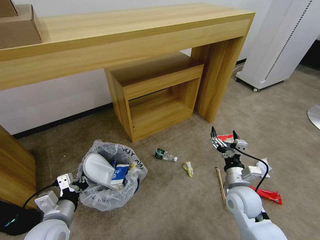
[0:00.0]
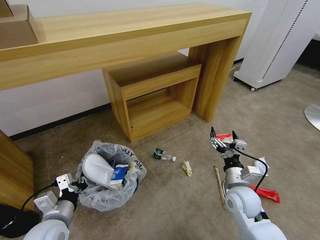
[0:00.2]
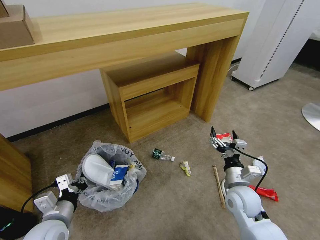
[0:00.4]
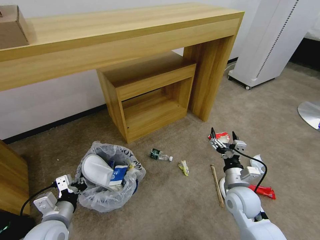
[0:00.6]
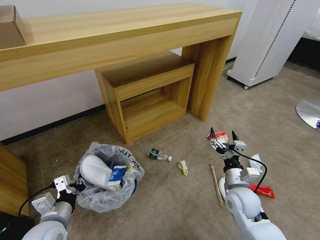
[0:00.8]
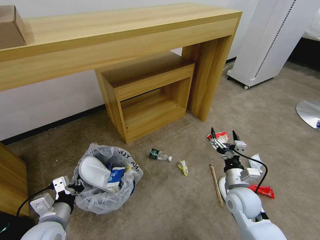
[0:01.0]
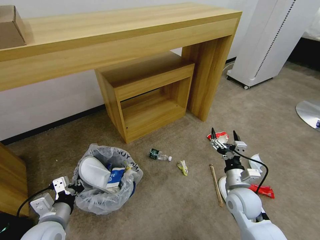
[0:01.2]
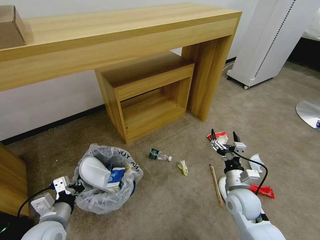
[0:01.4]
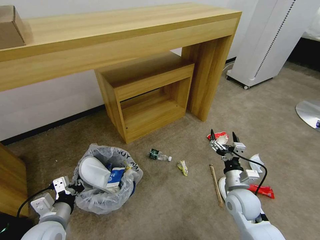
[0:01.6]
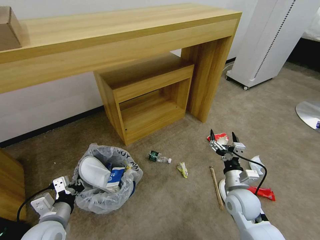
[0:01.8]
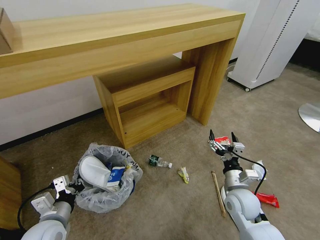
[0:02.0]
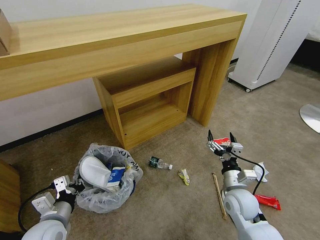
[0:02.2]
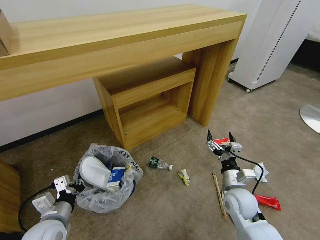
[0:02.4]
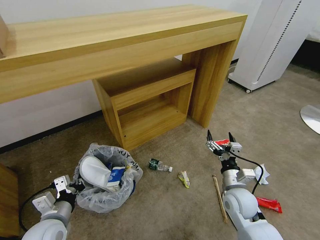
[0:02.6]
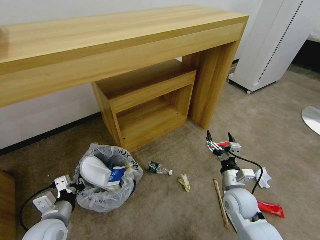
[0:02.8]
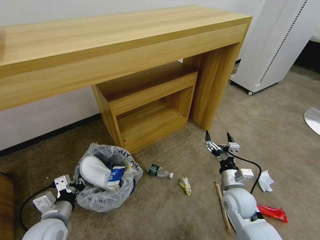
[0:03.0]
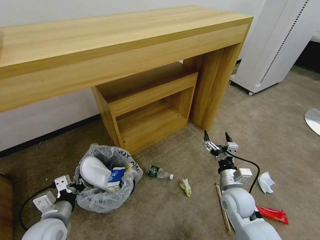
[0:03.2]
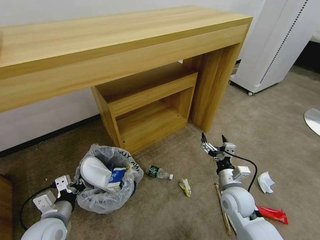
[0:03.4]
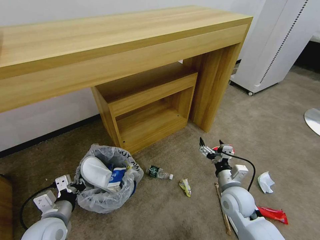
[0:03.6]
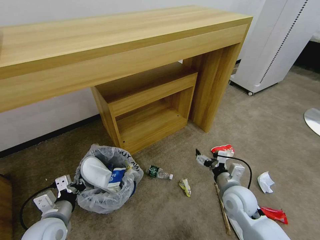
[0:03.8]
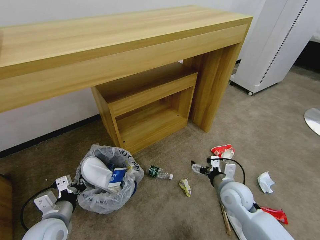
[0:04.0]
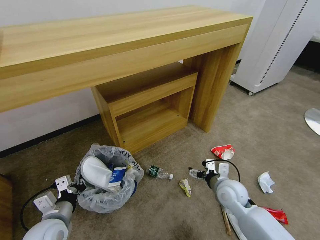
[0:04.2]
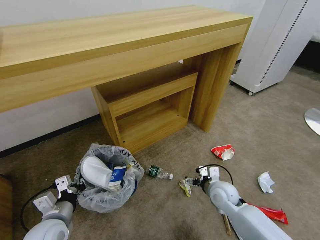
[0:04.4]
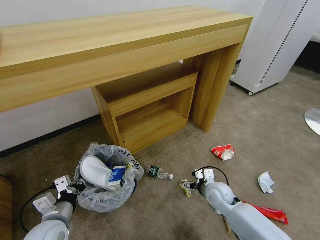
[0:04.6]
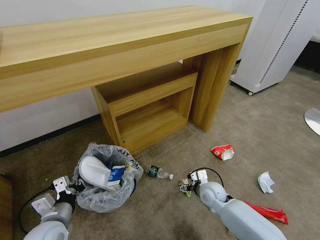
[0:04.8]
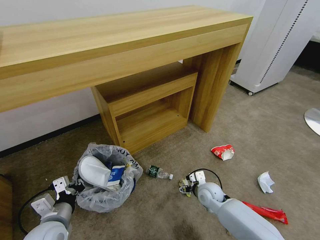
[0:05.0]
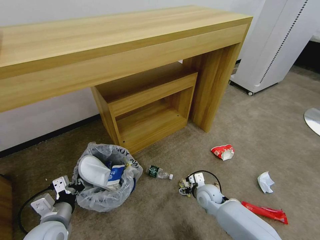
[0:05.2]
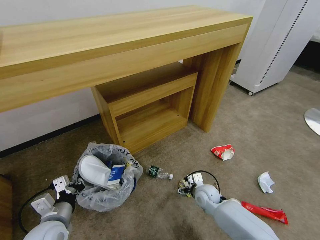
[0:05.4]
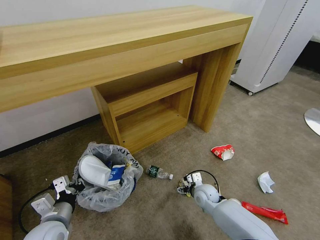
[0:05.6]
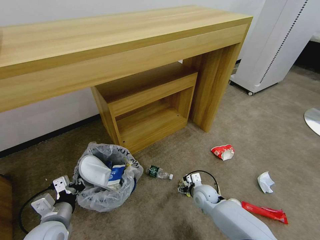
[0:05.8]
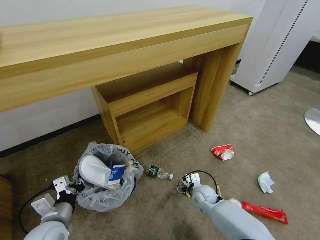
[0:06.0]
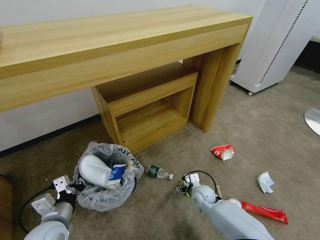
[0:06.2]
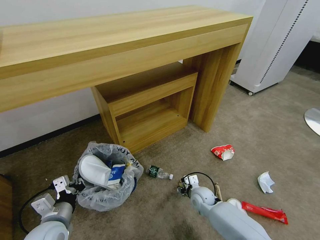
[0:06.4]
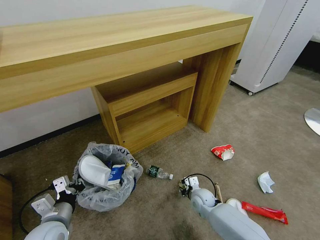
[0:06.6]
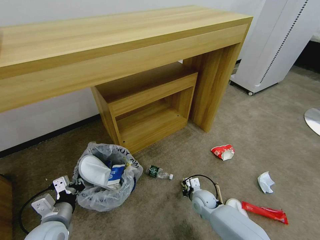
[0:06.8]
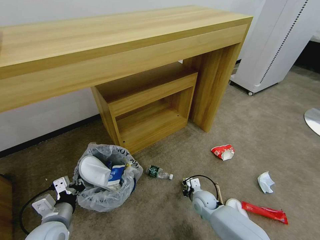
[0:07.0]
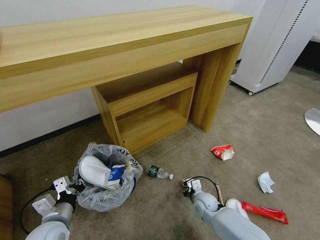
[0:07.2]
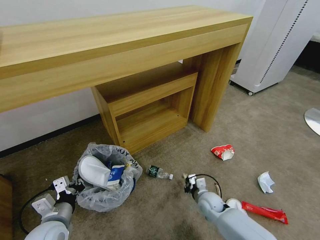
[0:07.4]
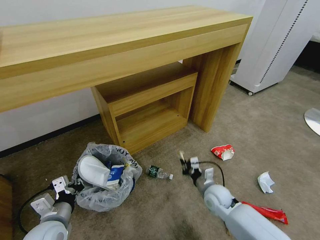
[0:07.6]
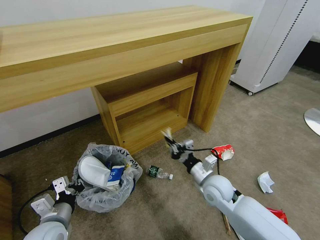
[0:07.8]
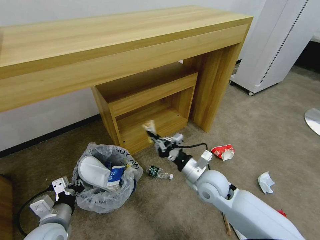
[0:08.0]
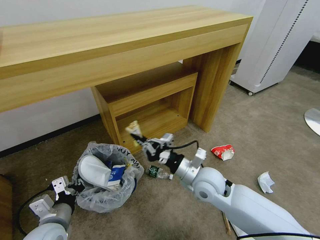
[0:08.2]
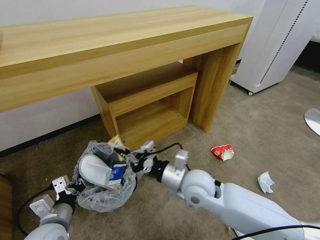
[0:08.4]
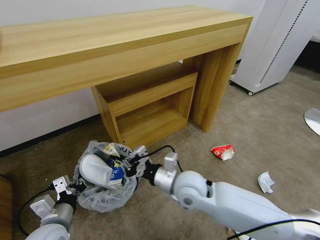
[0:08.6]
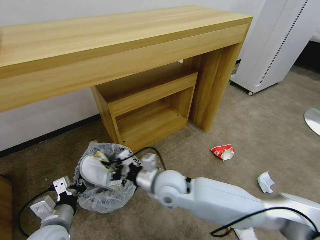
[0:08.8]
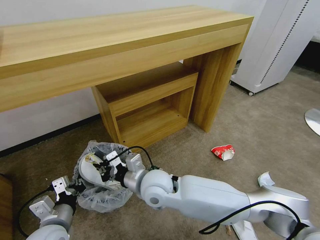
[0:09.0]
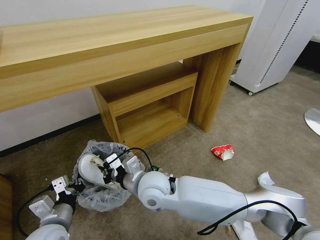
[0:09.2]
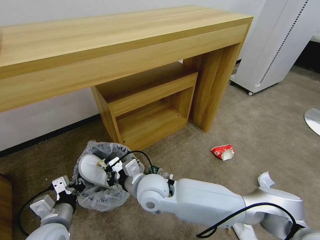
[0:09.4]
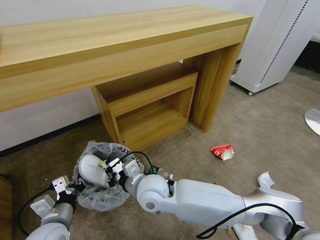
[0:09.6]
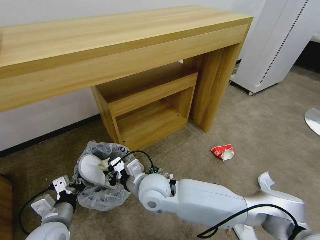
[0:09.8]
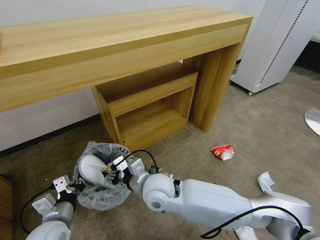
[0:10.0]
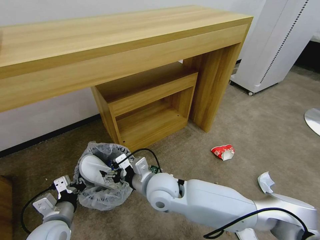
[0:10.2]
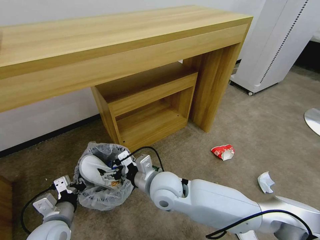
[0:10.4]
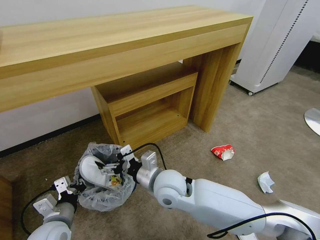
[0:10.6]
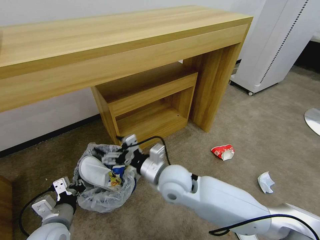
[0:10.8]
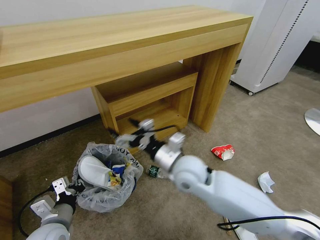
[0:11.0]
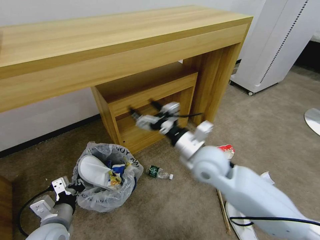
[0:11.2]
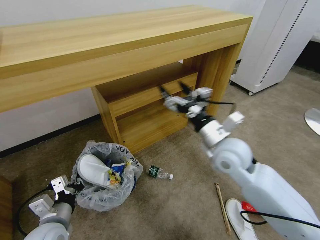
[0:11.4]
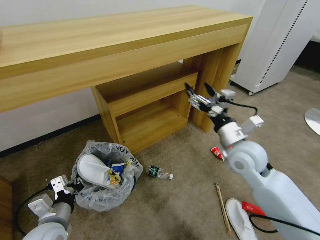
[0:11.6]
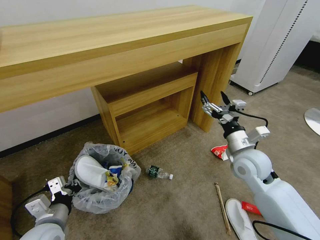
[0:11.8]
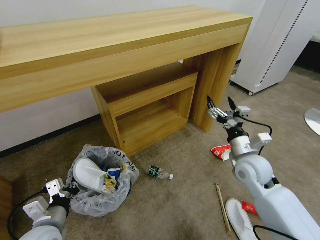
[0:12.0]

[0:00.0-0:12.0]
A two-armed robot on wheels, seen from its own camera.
Task of the whole recording: Pick up the trash bin and place the garbage on the floor into it.
0:03.0 to 0:04.4: The right gripper moves about 5 cm.
0:04.4 to 0:06.0: The right gripper goes approximately 10 cm downward.
0:06.0 to 0:07.6: The right gripper is displaced upward by about 5 cm, and closes up.
0:07.6 to 0:09.0: The right gripper goes about 30 cm to the left and upward.
0:09.0 to 0:10.4: The right gripper opens.
0:10.4 to 0:12.0: The right gripper goes some 25 cm to the right.

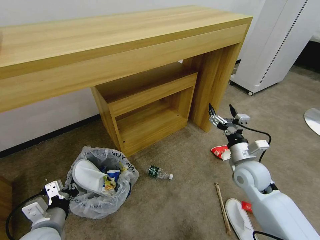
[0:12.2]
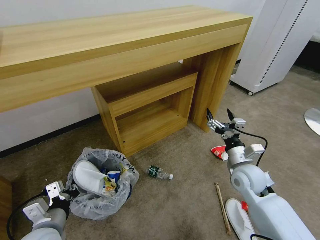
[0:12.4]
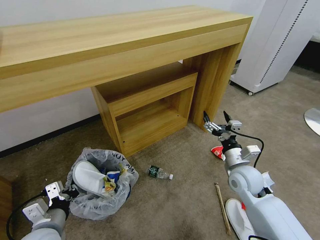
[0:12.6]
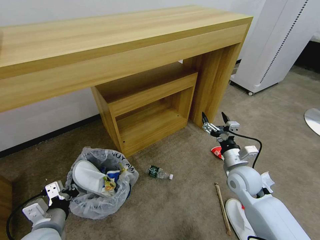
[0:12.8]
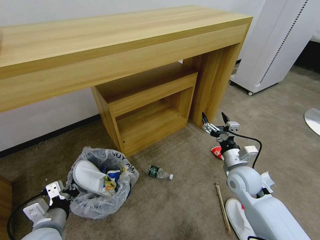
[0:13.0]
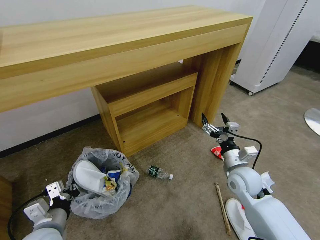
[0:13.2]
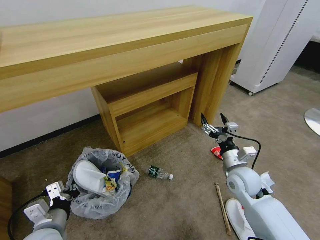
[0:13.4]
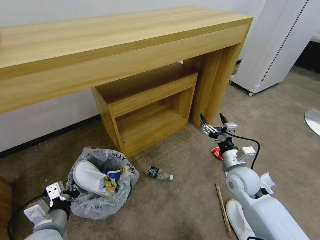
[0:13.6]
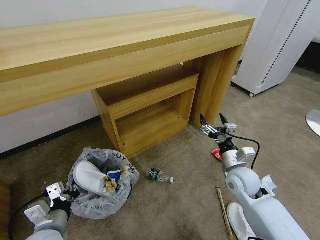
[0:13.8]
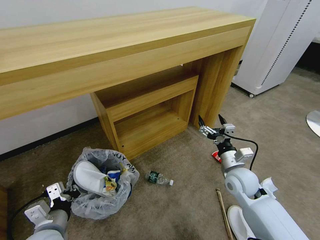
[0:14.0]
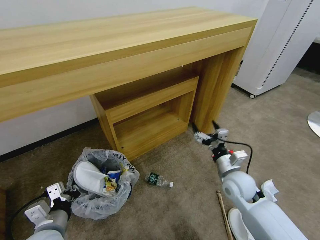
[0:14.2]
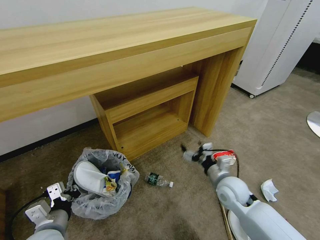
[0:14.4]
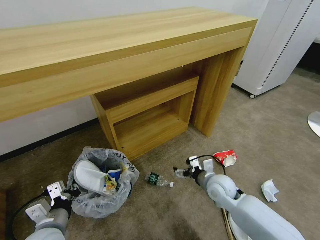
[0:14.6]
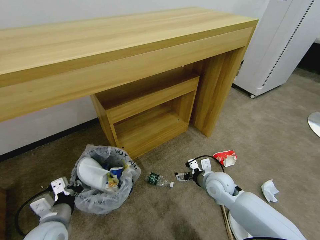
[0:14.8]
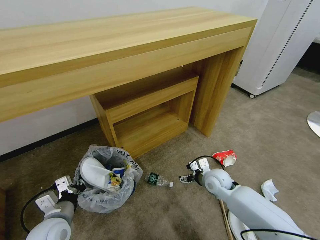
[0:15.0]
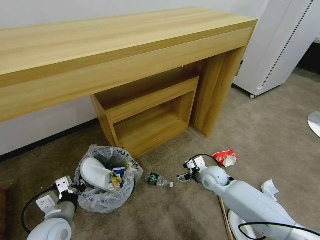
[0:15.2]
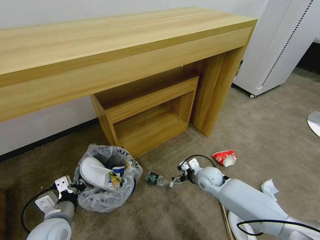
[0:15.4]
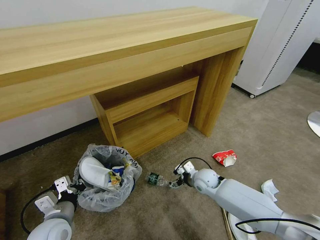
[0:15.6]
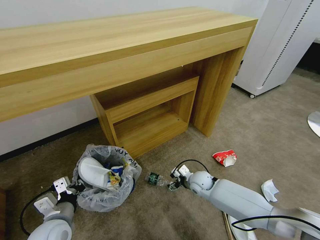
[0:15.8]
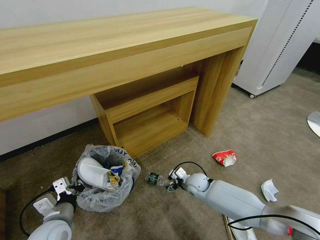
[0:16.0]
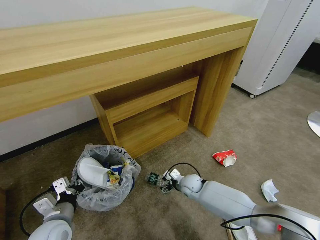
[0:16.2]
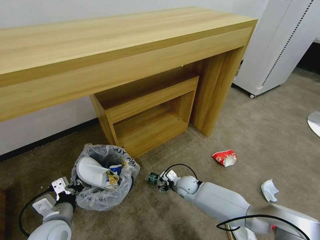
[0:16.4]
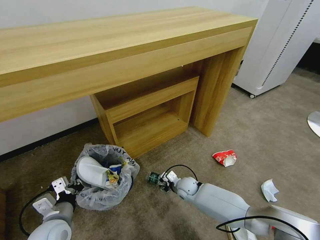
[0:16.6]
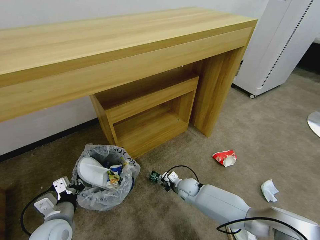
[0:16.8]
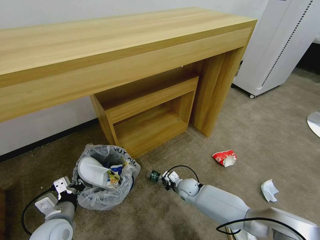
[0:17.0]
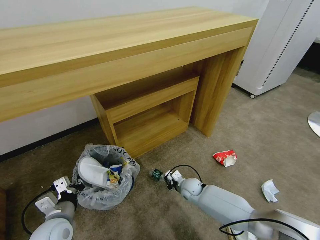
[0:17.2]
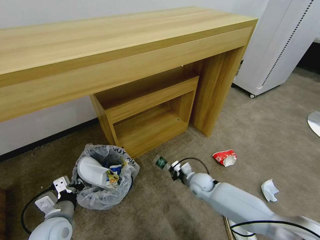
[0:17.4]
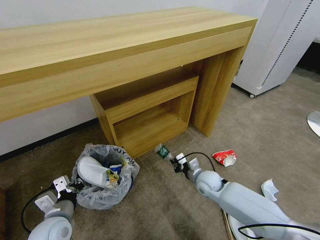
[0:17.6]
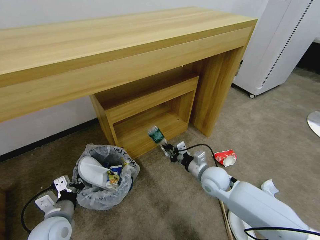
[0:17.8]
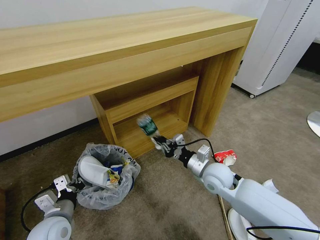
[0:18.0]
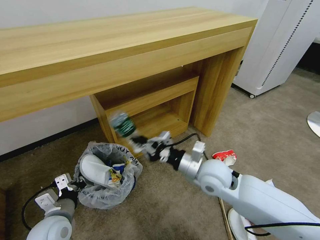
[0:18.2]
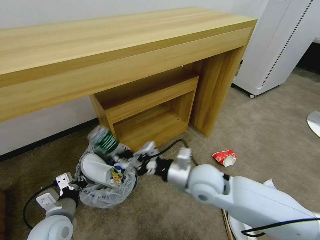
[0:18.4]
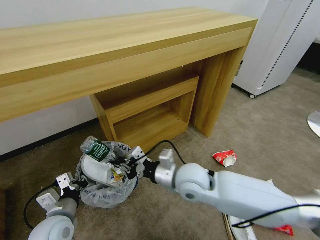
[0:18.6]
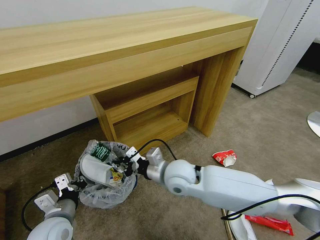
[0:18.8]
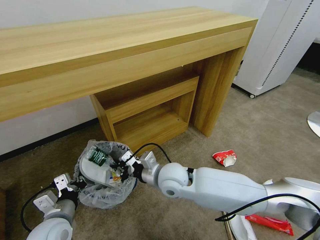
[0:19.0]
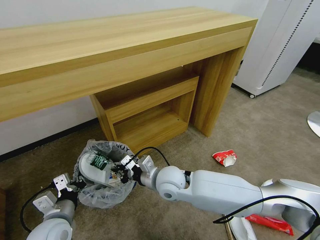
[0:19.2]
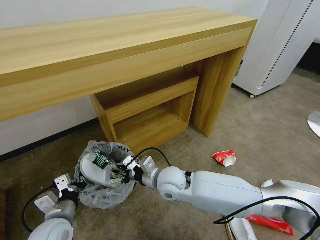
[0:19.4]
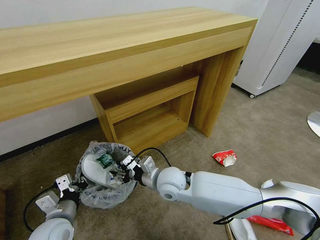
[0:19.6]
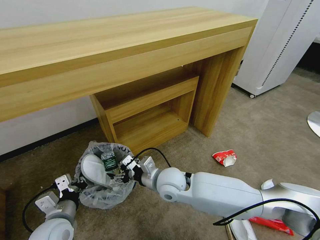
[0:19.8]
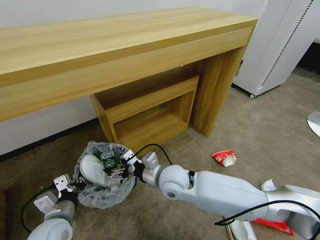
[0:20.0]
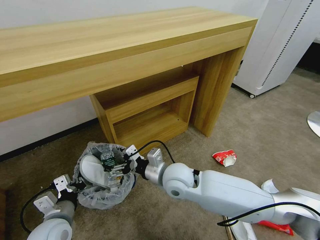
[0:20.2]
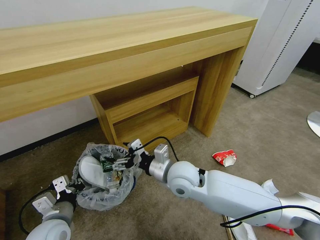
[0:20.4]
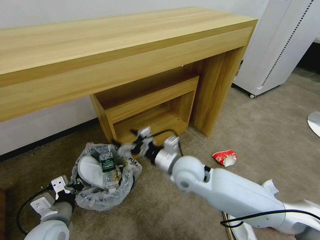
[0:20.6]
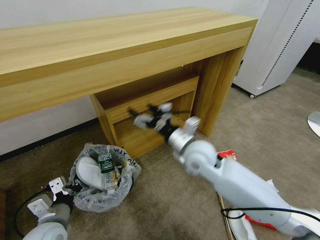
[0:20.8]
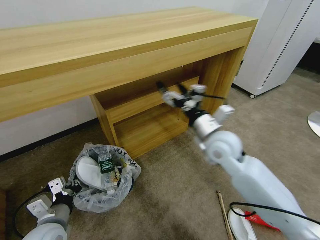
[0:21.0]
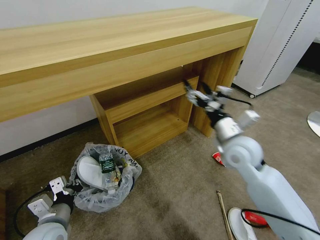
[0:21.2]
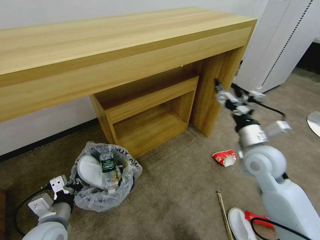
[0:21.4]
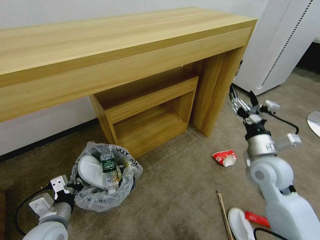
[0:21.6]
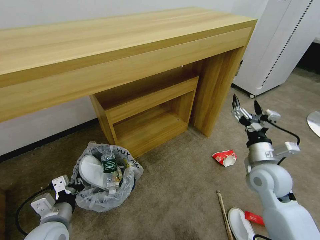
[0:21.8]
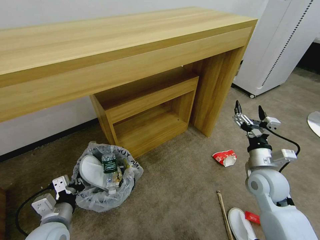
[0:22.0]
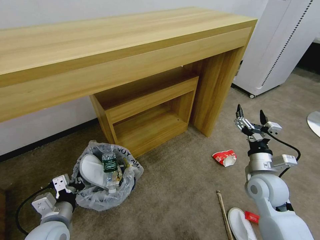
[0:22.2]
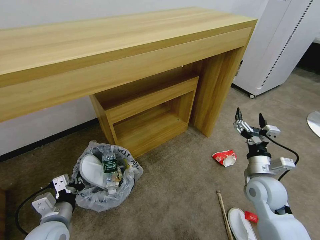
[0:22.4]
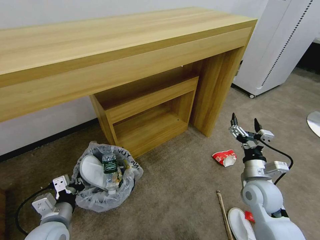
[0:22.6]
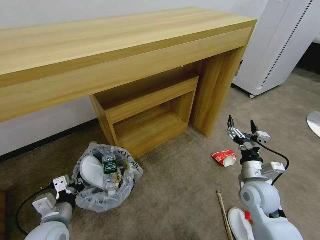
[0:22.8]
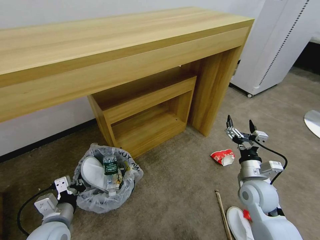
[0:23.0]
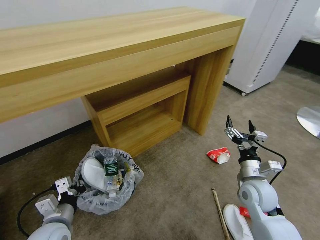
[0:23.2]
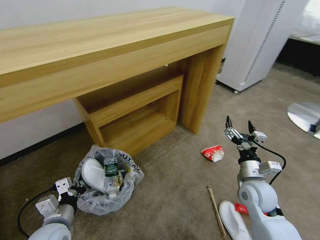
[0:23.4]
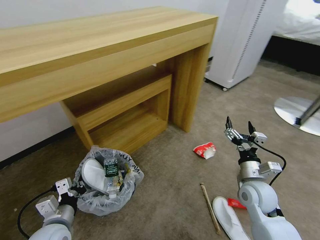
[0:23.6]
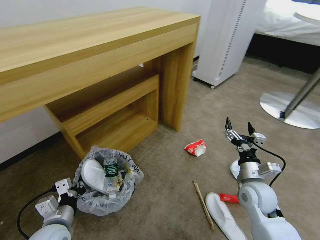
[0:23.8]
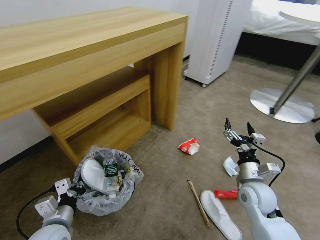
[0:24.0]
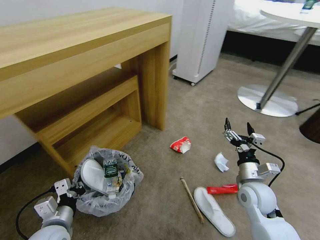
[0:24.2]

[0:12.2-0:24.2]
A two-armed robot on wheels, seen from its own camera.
Task of the whole recording: Pick up the trash bin and place the garbage on the floor into it.
0:12.2 to 0:13.8: The grippers stay close to where they were, moving slightly.
0:13.8 to 0:15.2: The right gripper heads downward, forward and to the left, covering approximately 10 cm.
0:15.2 to 0:16.6: The right gripper moves downward and to the left, approximately 15 cm, and closes.
0:16.6 to 0:18.2: The right gripper travels upward by approximately 25 cm, and closes.
0:18.2 to 0:19.8: The right gripper shifts approximately 15 cm to the left, and opens up.
0:19.8 to 0:21.2: The right gripper is displaced to the right and upward by about 25 cm.
0:21.2 to 0:22.6: The right gripper shifts about 15 cm downward, to the right and backward.
